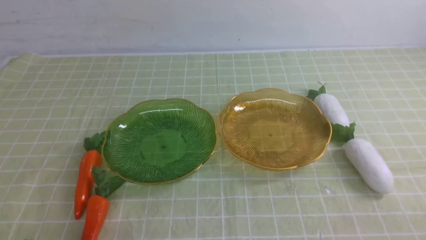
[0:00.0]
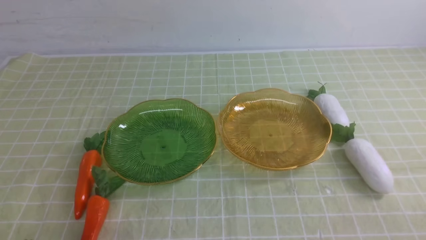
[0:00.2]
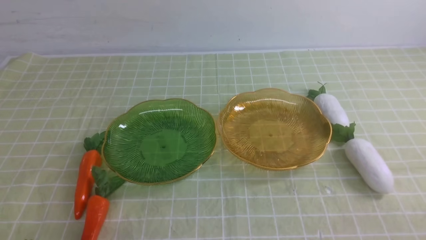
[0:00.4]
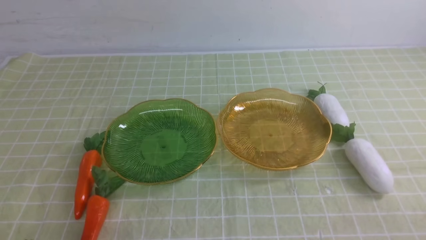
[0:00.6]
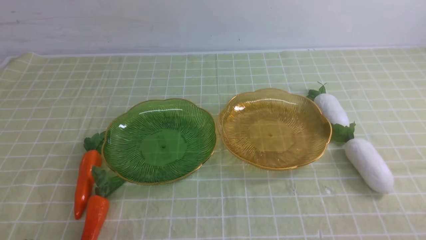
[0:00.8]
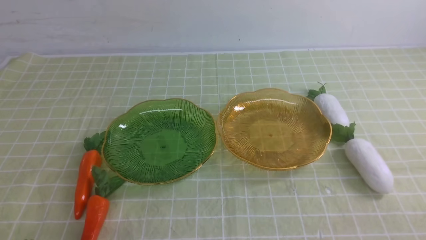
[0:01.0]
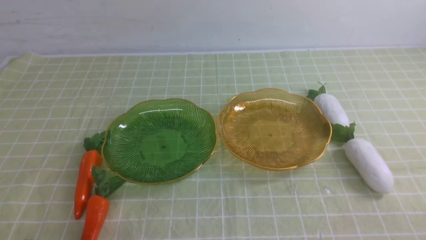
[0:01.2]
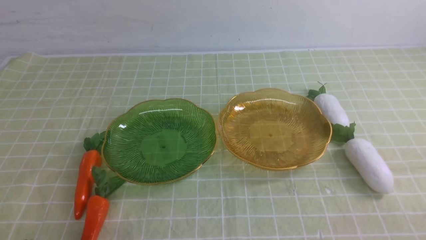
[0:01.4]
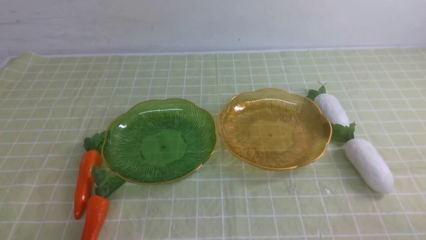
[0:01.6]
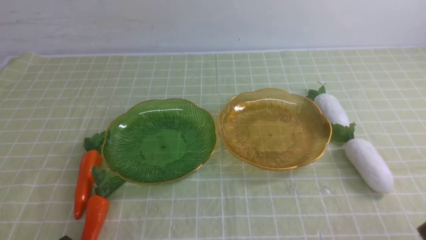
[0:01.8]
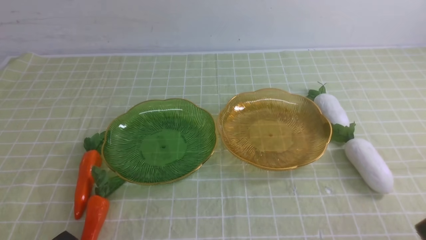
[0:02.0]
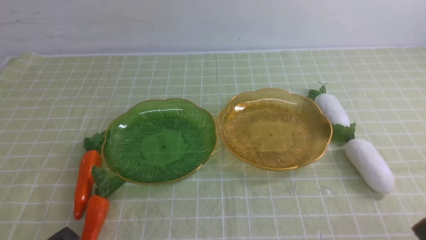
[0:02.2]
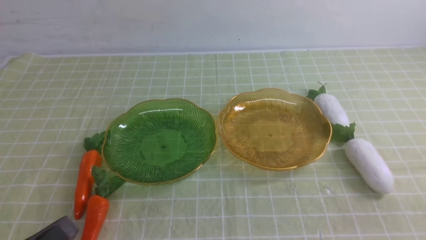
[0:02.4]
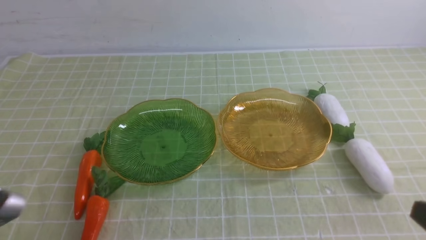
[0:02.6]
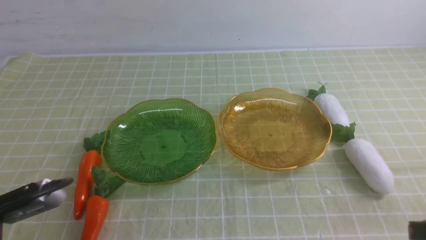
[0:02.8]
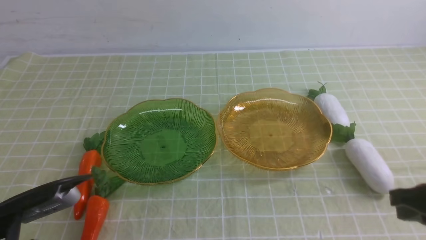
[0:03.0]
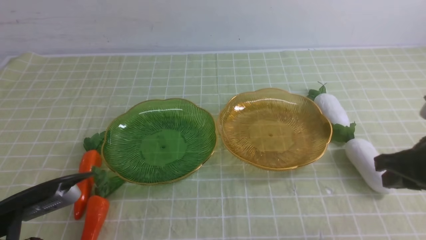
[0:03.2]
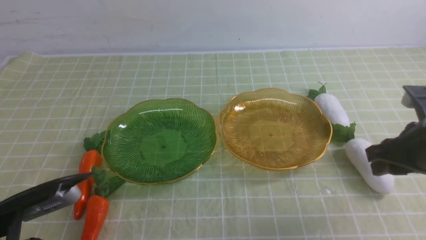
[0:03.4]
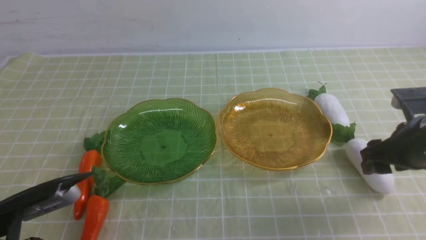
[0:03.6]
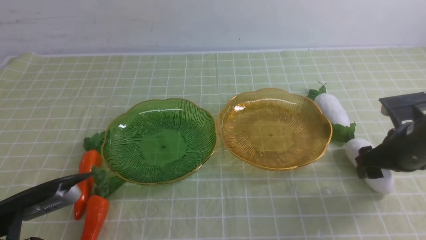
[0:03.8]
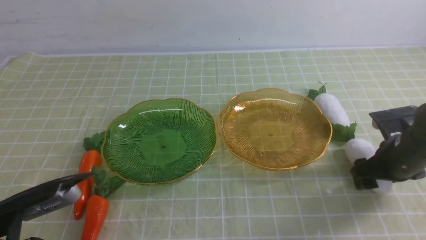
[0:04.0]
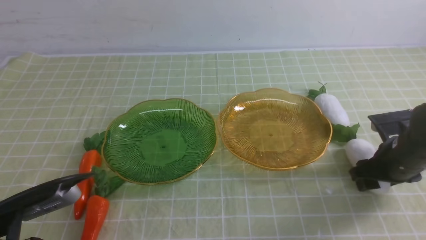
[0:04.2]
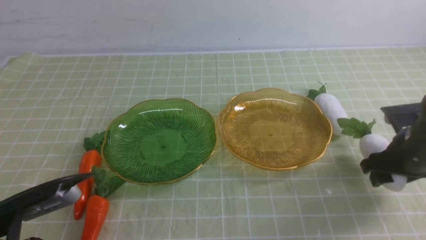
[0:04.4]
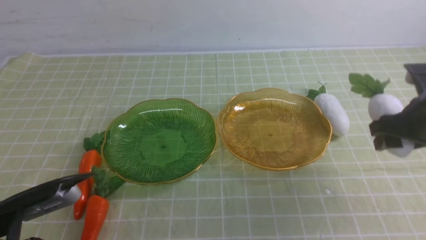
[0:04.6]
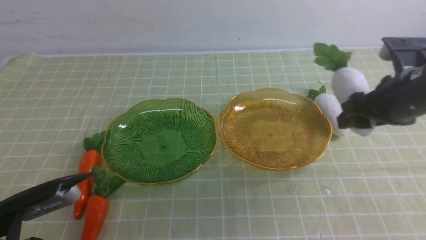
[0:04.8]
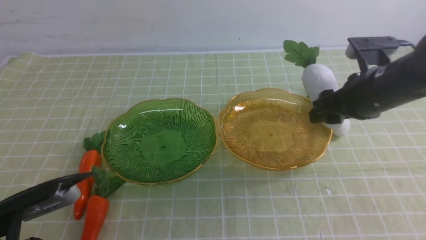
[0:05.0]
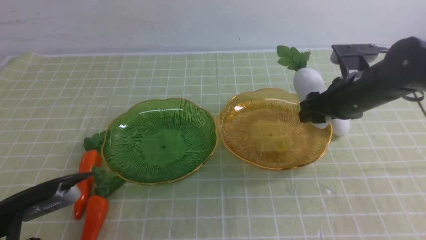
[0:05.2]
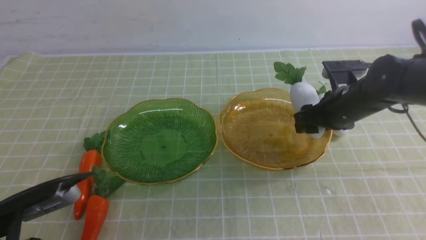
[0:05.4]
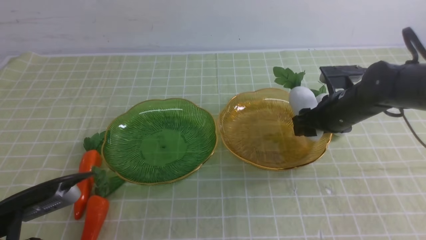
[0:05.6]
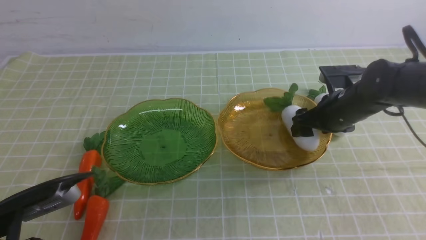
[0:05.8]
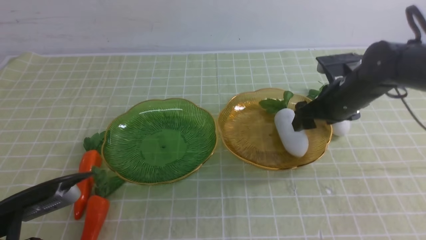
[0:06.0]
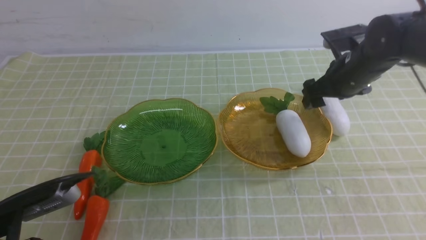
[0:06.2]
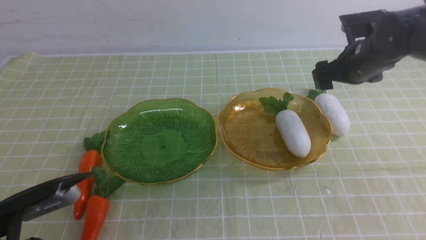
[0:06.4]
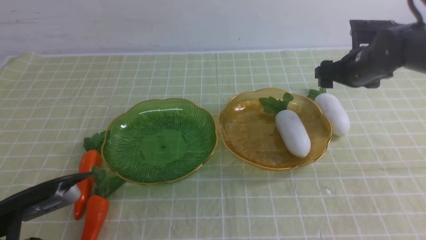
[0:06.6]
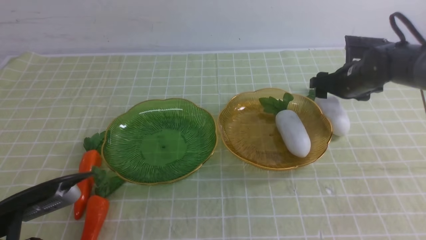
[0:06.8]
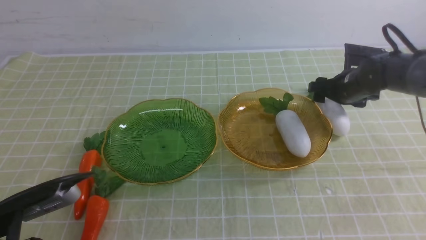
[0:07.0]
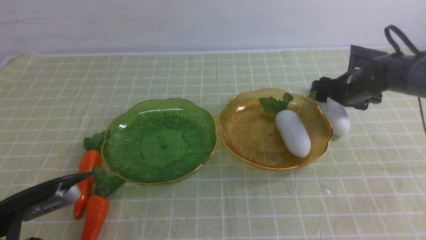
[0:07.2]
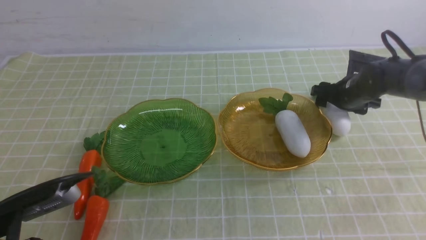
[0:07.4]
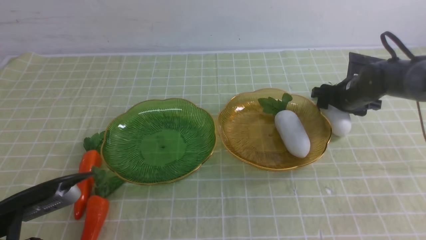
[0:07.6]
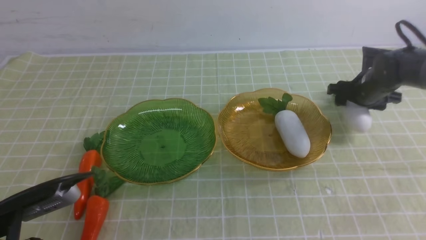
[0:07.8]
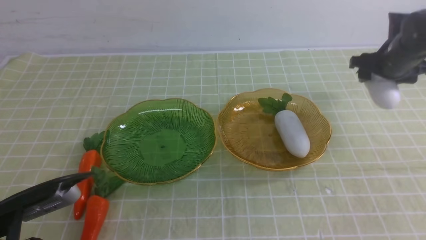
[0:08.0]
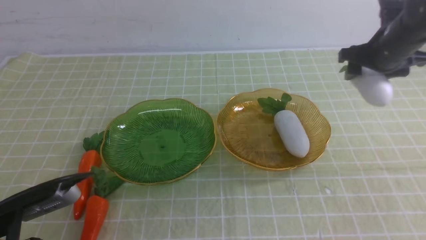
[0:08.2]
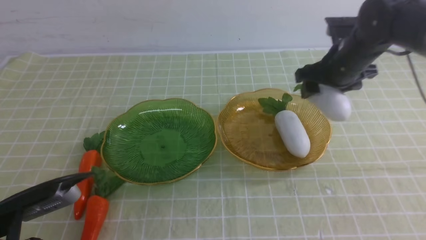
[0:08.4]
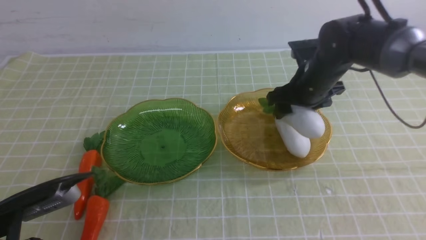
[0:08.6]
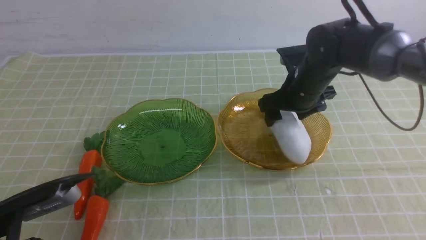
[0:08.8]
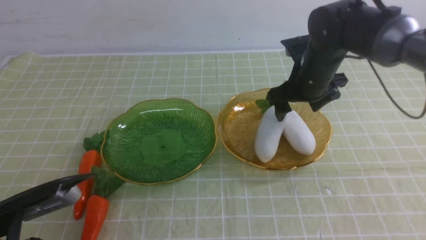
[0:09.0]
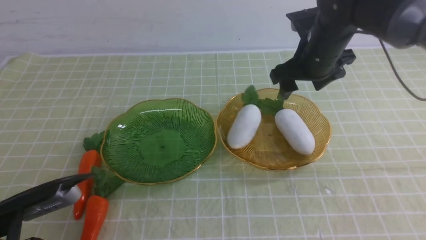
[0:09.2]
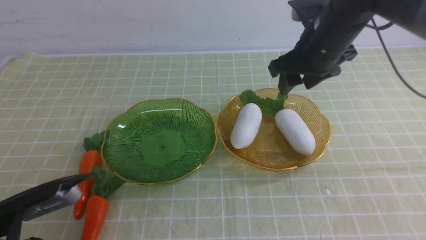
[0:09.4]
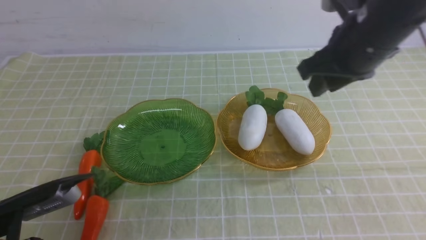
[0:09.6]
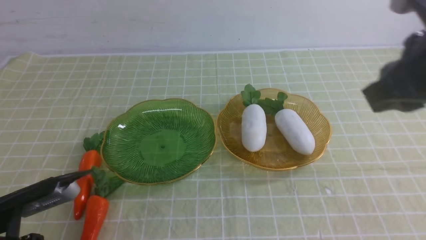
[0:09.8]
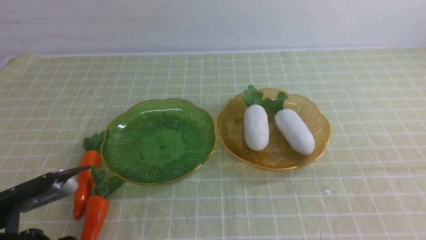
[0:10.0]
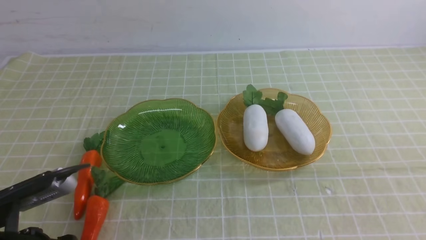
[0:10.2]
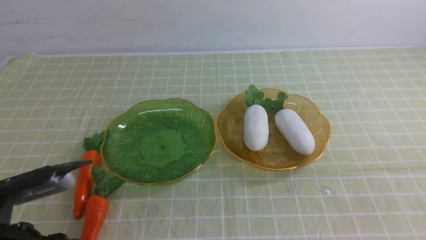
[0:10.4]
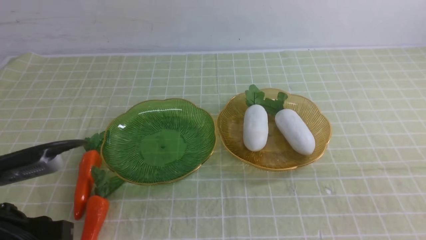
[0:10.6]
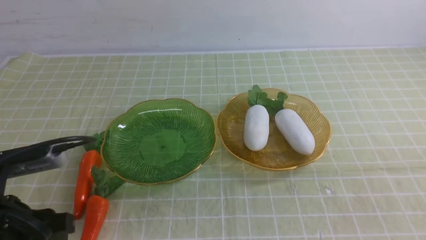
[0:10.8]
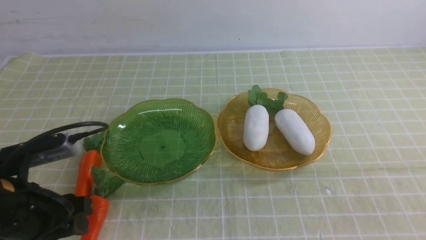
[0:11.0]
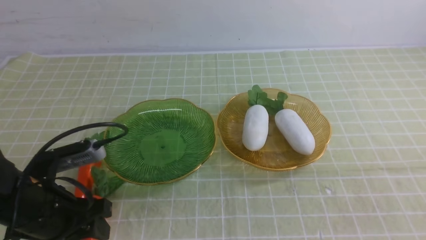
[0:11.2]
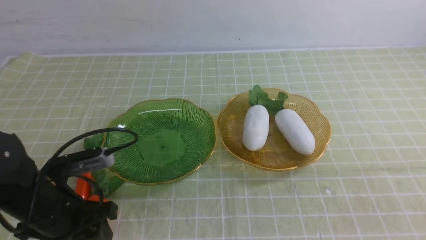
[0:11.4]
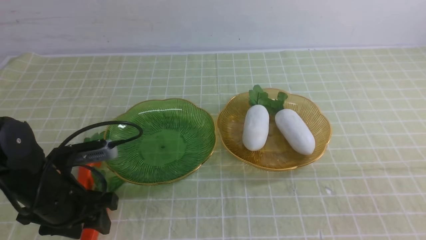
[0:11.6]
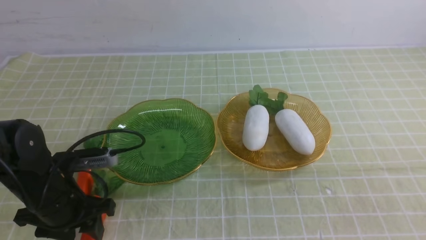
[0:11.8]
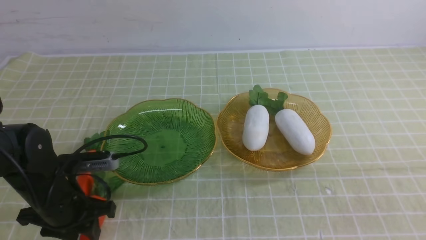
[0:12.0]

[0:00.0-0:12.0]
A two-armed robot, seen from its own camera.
Step, 0:00.0 to 0:06.4: use the right arm to grab a radish and put it into the right plate.
Step, 0:06.6 to 0:10.0: use the right arm to grab a radish and put it into the right plate.
0:01.6 to 0:03.0: The left gripper shifts about 5 cm upward. The right gripper moves forward and upward, about 15 cm.
0:03.0 to 0:04.4: The right gripper moves forward and downward, some 15 cm, and opens.
0:04.4 to 0:06.0: The right gripper heads forward and to the left, covering roughly 10 cm.
0:06.0 to 0:07.6: The right gripper travels forward, to the right and downward by roughly 10 cm.
0:07.6 to 0:09.0: The right gripper heads to the left, upward and backward, covering approximately 15 cm.
0:09.0 to 0:10.4: The right gripper is displaced backward by about 35 cm, and closes.
0:10.4 to 0:12.0: The left gripper is displaced forward and downward by about 15 cm.

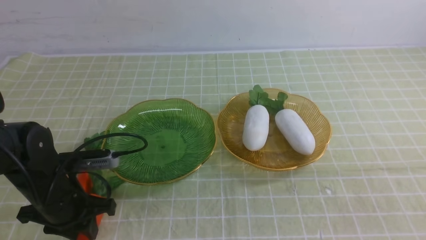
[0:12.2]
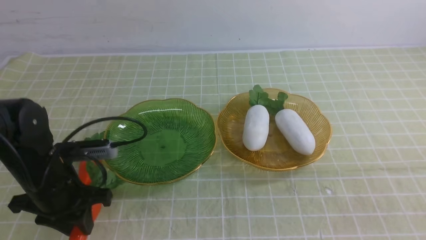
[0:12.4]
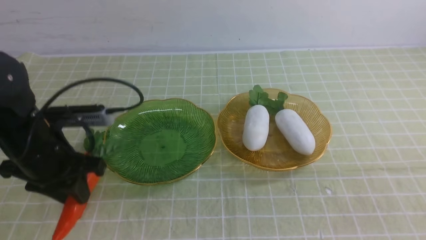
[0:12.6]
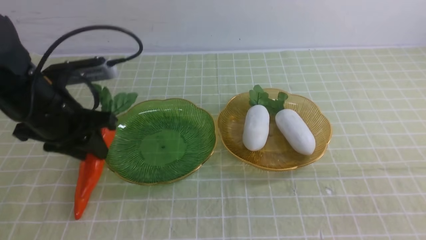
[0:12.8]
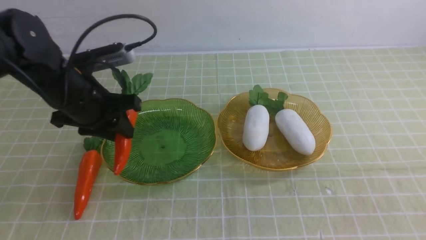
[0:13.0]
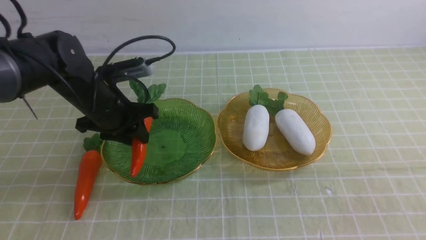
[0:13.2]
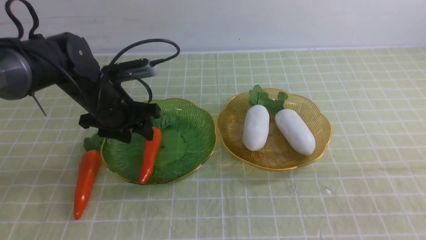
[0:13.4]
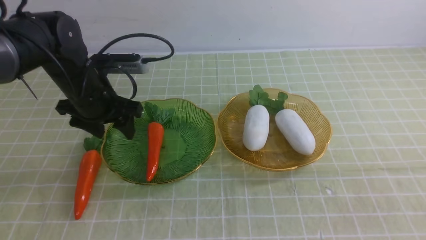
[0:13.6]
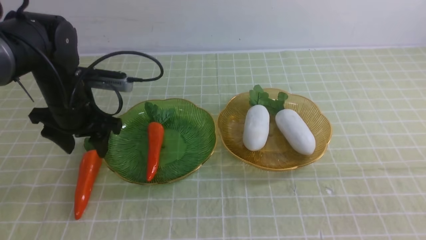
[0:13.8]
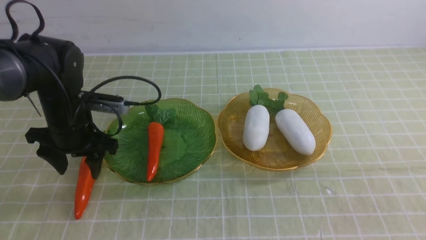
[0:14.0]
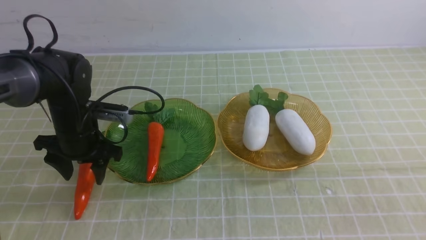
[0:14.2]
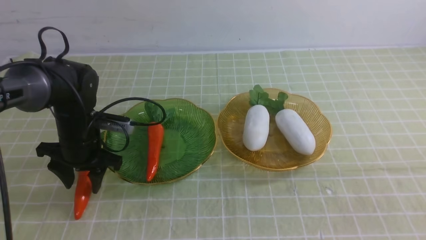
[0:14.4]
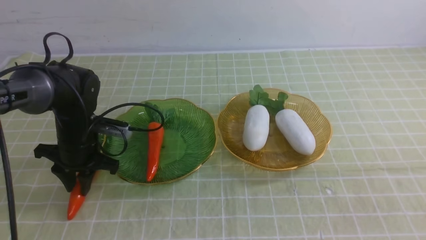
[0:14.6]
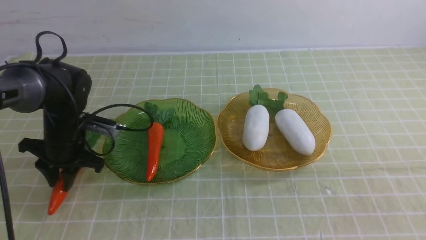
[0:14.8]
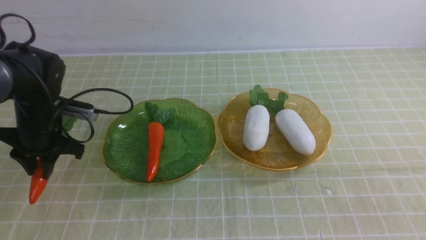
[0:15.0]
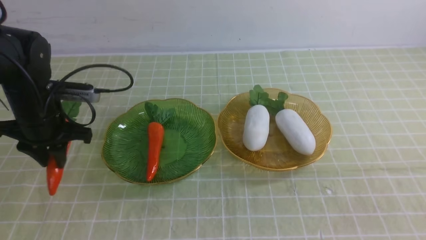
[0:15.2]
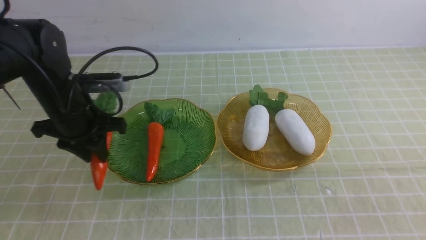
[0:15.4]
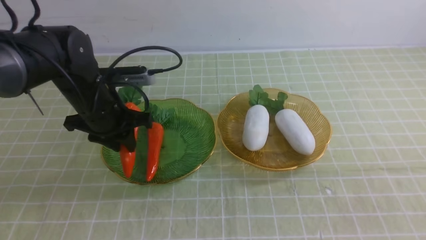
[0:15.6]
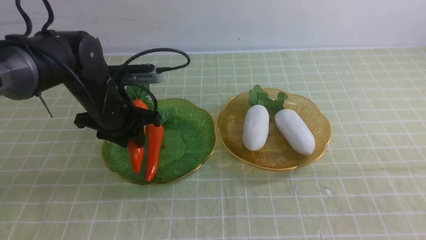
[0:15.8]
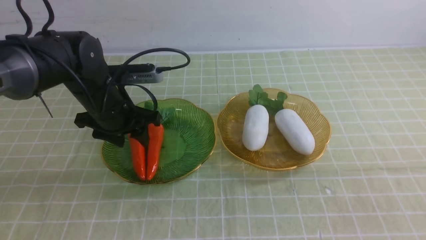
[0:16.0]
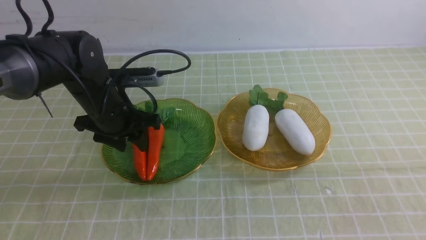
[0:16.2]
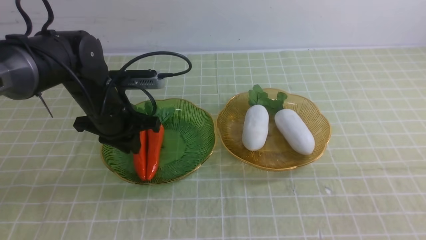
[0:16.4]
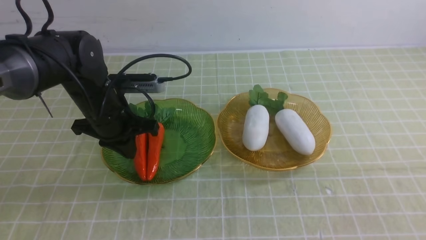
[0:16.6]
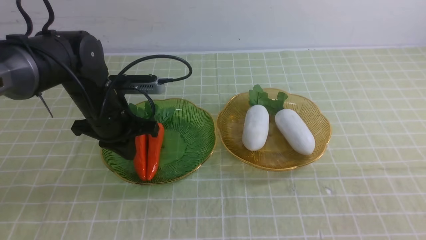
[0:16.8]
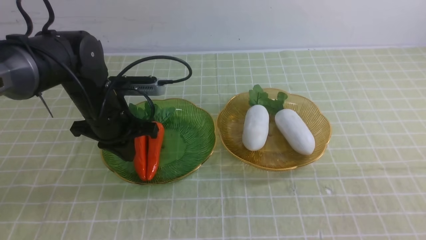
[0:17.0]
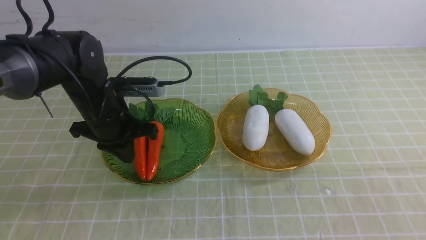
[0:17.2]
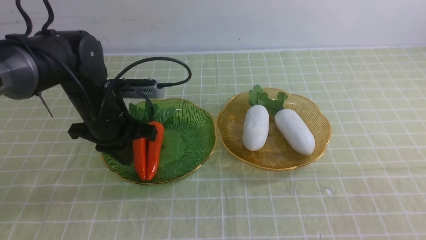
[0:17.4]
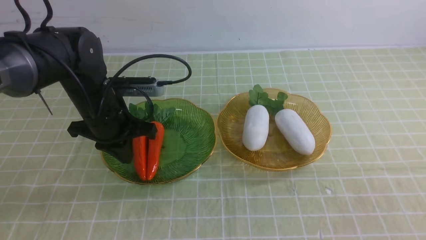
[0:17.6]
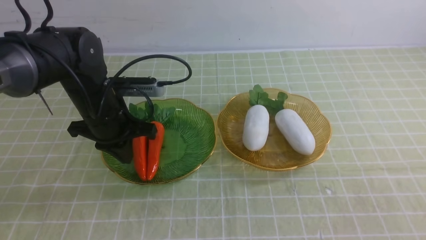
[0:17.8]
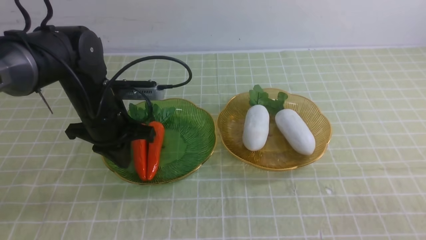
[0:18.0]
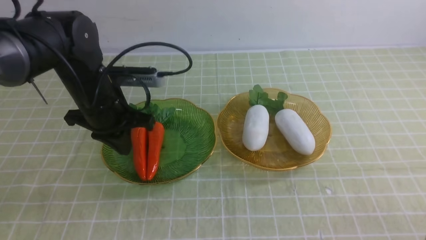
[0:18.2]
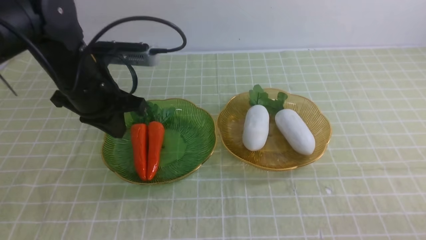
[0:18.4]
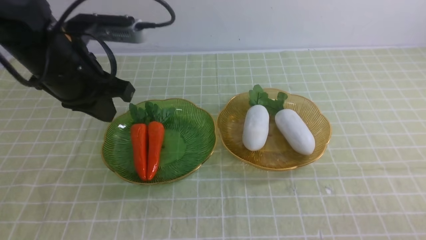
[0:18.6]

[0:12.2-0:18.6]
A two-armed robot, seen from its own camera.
Step, 0:12.2 to 0:16.6: use the left arm to grab a carrot and put it into the left plate.
0:12.2 to 0:13.8: The left gripper heads forward and upward, covering some 15 cm, and opens its fingers.
0:13.8 to 0:15.4: The left gripper moves about 10 cm downward and comes back, and closes up.
0:15.4 to 0:17.0: The left gripper heads to the right, covering about 5 cm, and closes.
0:17.0 to 0:18.6: The right gripper shifts roughly 15 cm downward, while the left gripper goes approximately 10 cm upward.
